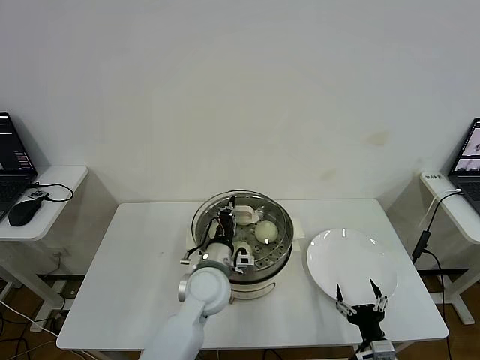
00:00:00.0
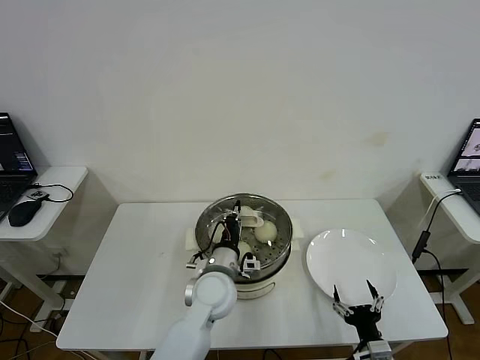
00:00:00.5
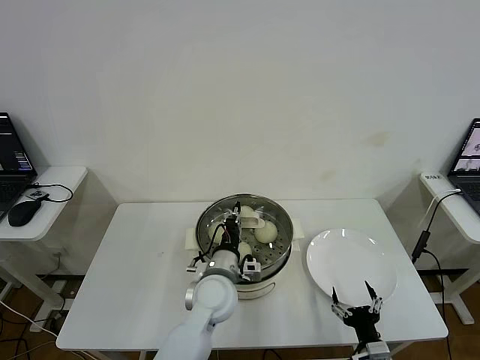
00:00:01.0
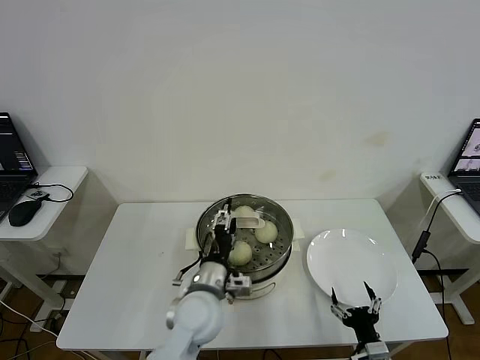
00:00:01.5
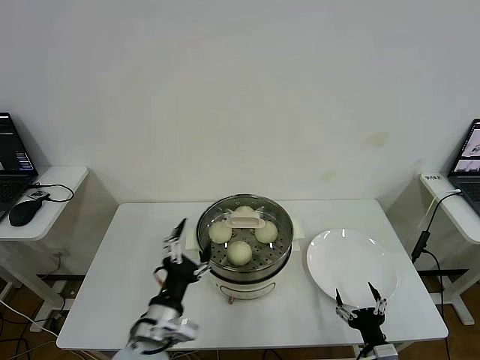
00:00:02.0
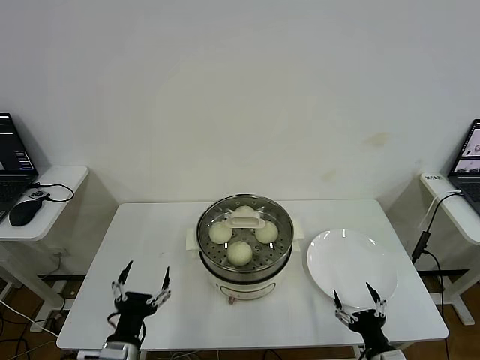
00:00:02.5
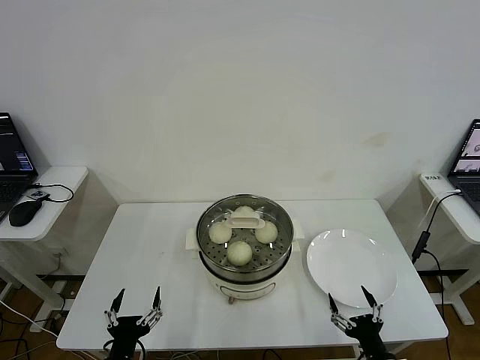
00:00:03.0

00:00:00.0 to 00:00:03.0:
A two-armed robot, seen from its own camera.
00:00:00.0 to 00:00:01.5: The left gripper opens its fingers.
00:00:01.5 to 00:00:03.0: The left gripper is displaced backward, to the left and downward by roughly 25 cm.
